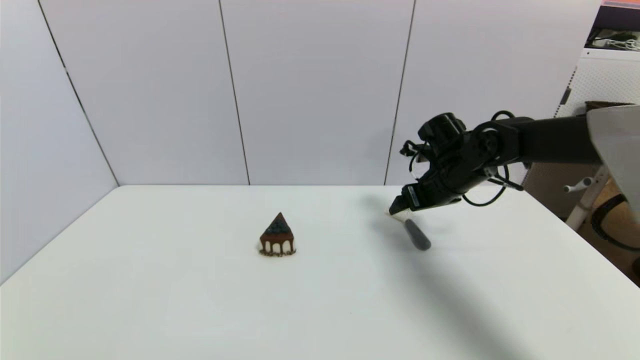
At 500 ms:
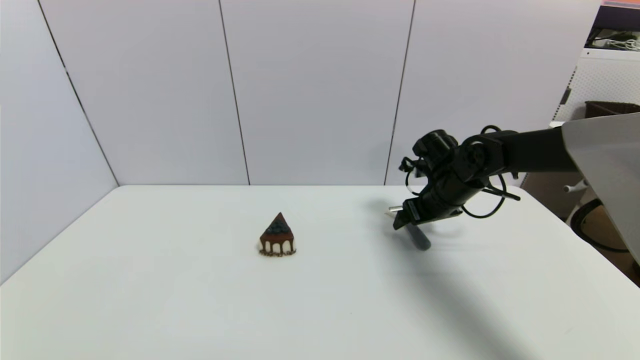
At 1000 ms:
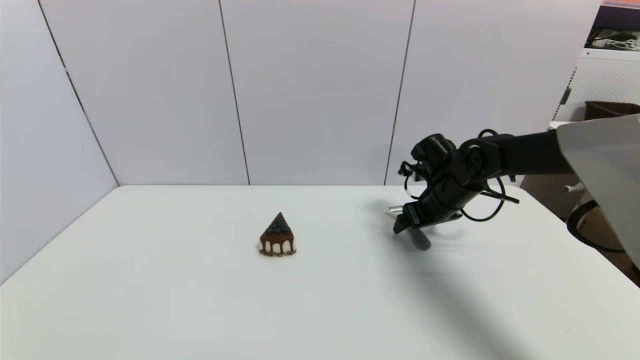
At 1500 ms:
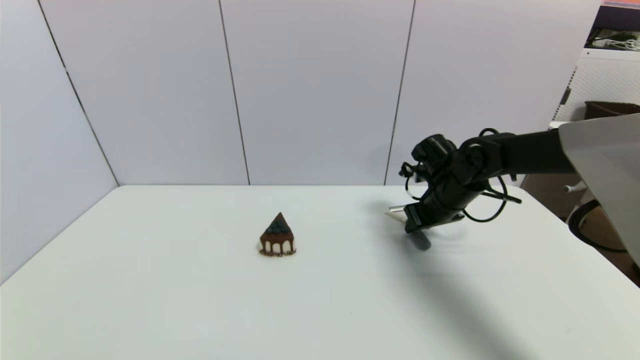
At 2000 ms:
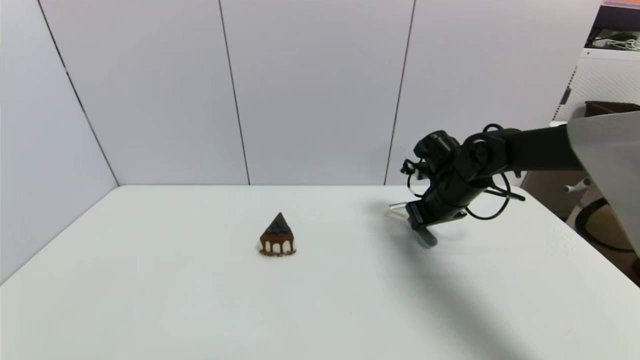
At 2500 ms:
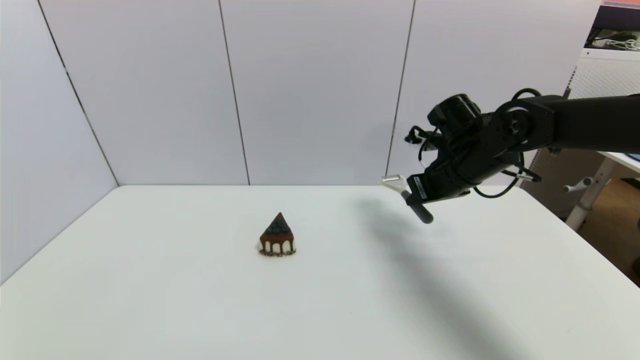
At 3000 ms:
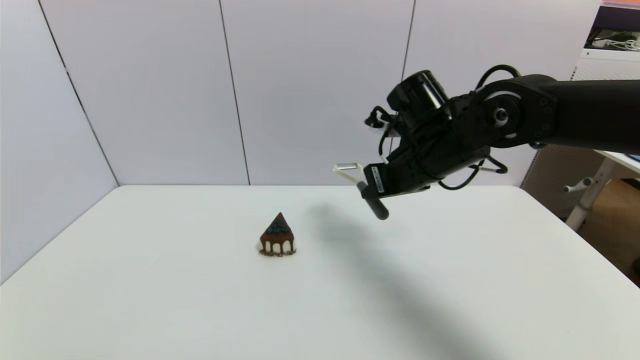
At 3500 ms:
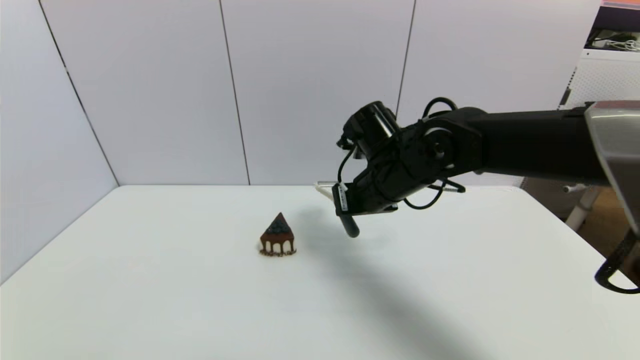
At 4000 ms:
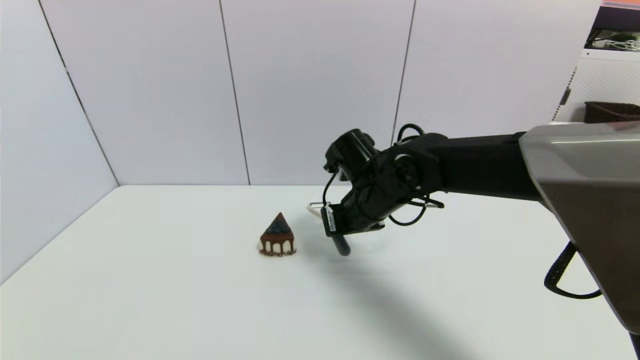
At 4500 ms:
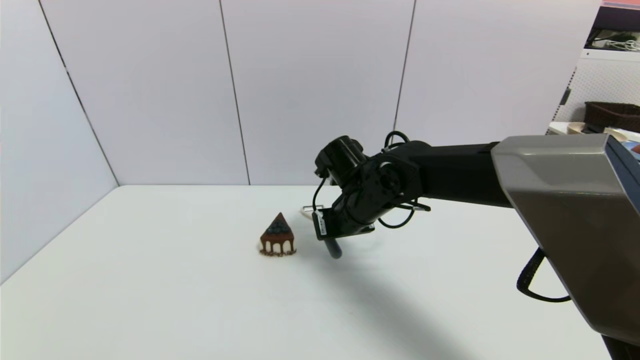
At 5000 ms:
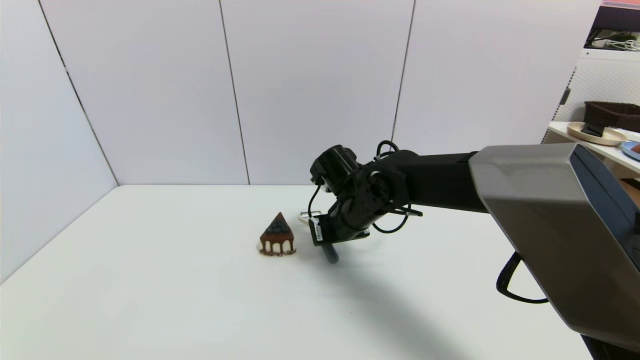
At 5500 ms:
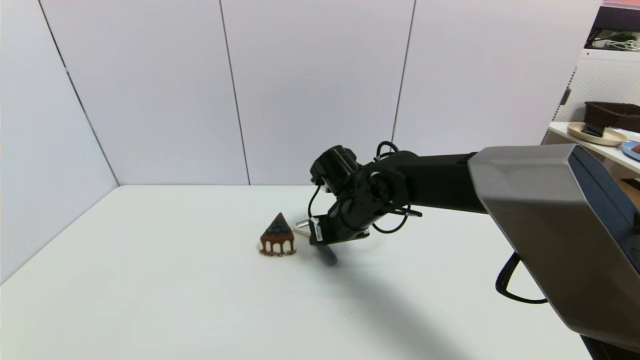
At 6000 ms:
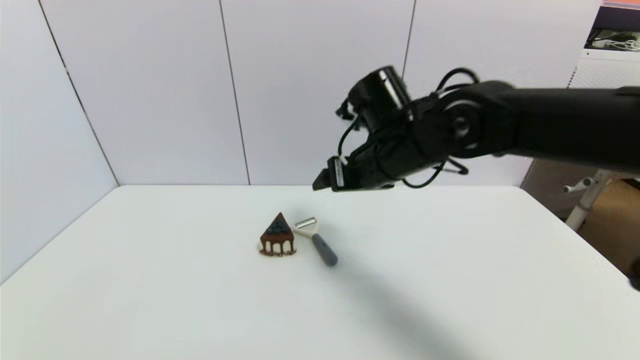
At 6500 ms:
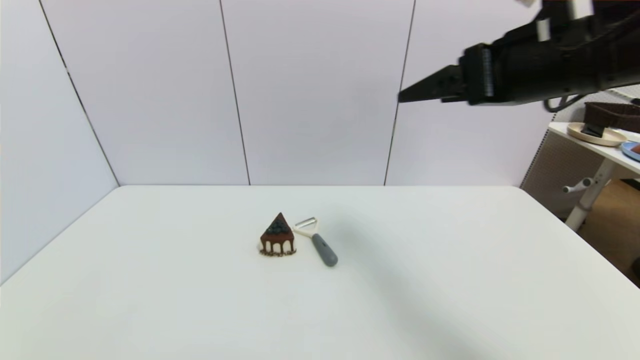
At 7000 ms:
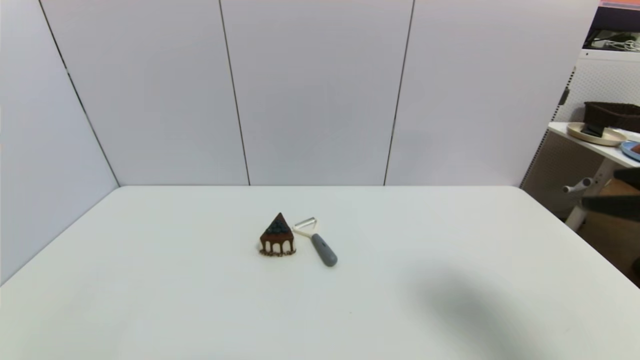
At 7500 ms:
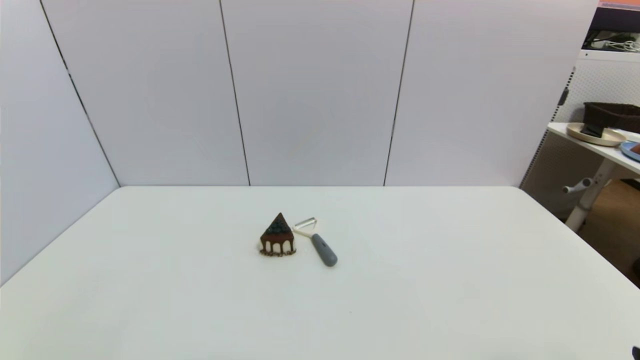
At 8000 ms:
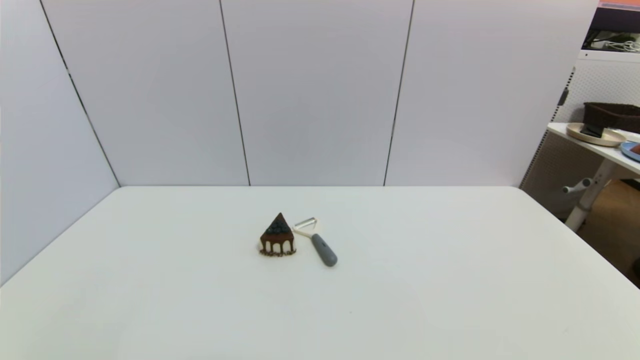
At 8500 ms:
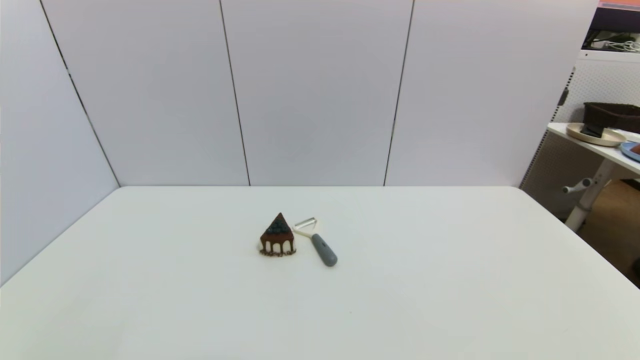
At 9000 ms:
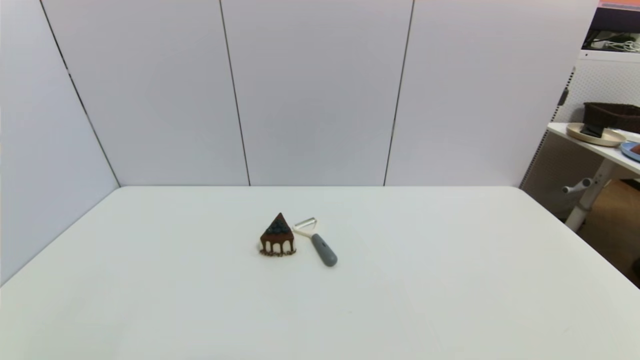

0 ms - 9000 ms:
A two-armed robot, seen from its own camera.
Step, 0 ms - 2000 ms: Grasp the peeler with right gripper.
Step, 2500 ms - 5500 ms: Place the peeler on the table with right gripper.
0 ms - 2000 ms: The right gripper closes.
2000 ms - 4500 ms: The right gripper travels to the left by roughly 15 cm.
4500 ms - 7000 ms: The right gripper goes about 40 cm to the right, backward and upward, and opens.
7000 ms - 9000 ms: The right gripper goes some 25 cm downward and backward.
